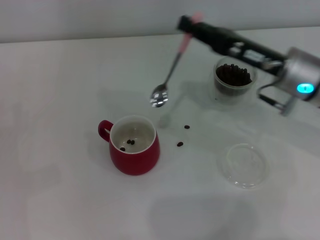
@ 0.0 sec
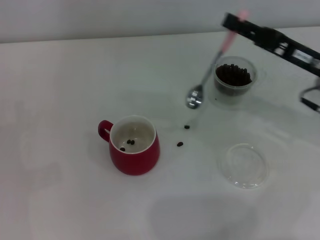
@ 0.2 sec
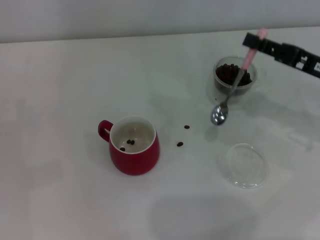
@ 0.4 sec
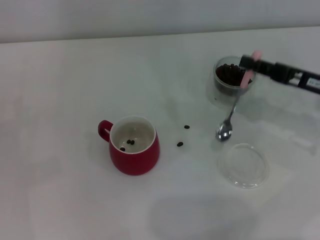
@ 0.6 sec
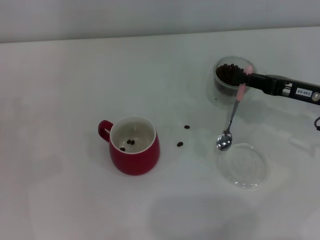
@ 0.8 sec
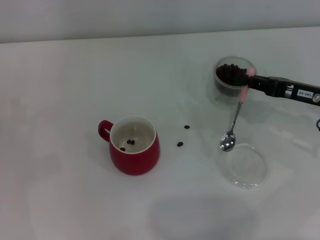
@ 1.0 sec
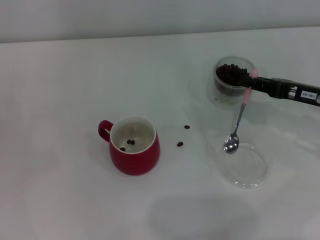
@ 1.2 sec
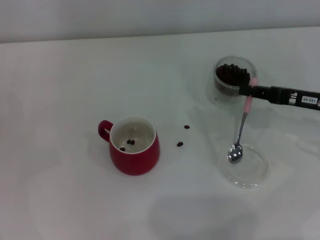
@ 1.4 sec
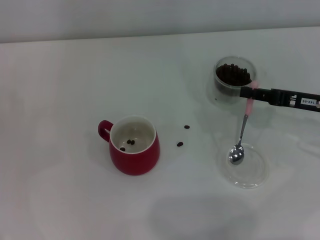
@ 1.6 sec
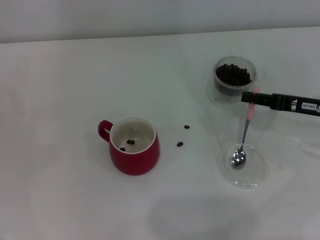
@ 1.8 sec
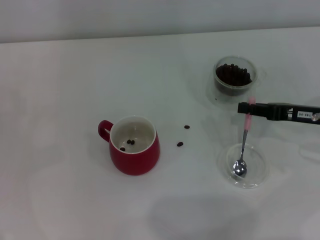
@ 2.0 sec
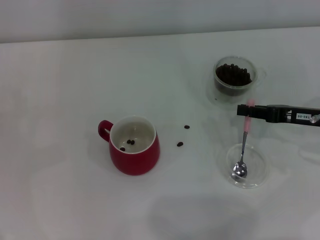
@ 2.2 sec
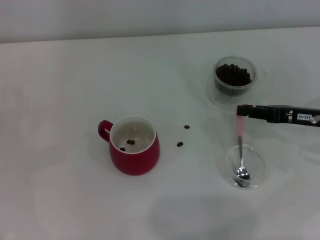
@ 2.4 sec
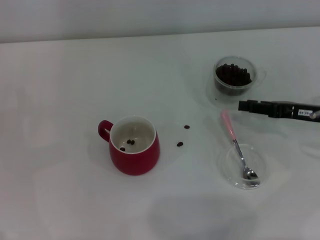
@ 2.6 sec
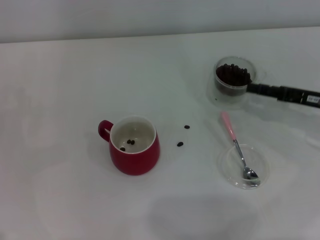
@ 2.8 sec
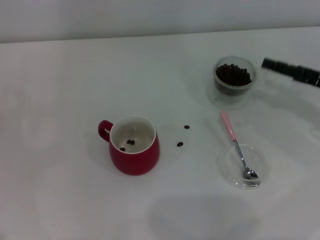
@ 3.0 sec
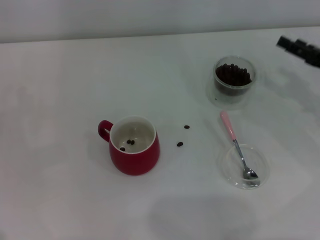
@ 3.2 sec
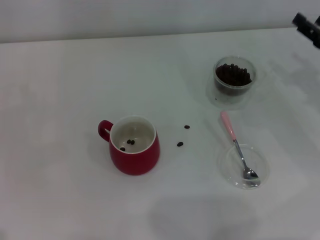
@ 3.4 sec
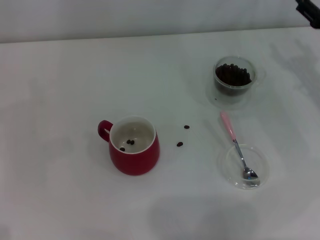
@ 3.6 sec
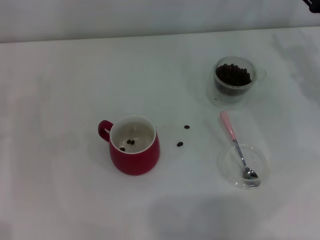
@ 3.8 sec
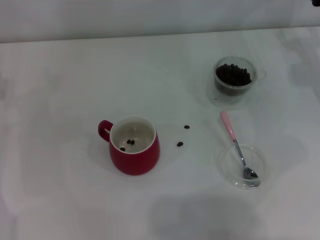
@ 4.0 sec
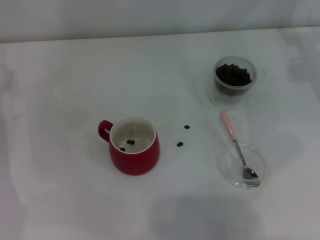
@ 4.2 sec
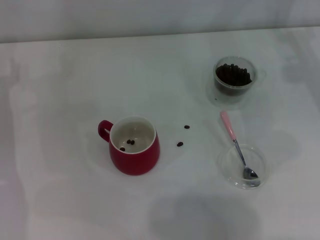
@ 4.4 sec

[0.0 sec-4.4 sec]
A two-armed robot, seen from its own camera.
Task of the whole recording: Use a pink spoon to take out the coffee beans from the glass and pour them into the red cup.
Step, 0.0 sec to 2.6 sec: Place the spoon back in its original place with the right gripper.
0.0 sec to 1.4 sec: The right gripper is displaced to the right by some 10 cm.
1.4 sec to 3.0 sec: The right gripper opens.
3.0 sec to 4.4 sec: The right gripper goes approximately 10 cm forward.
